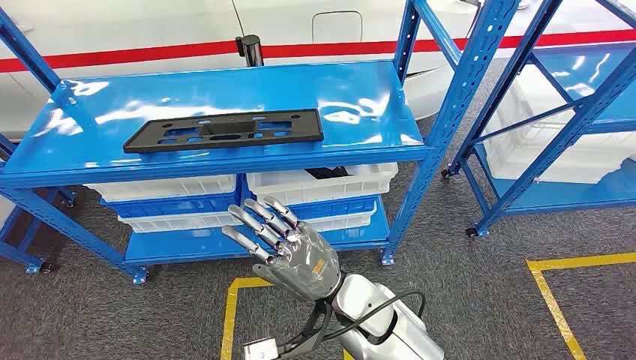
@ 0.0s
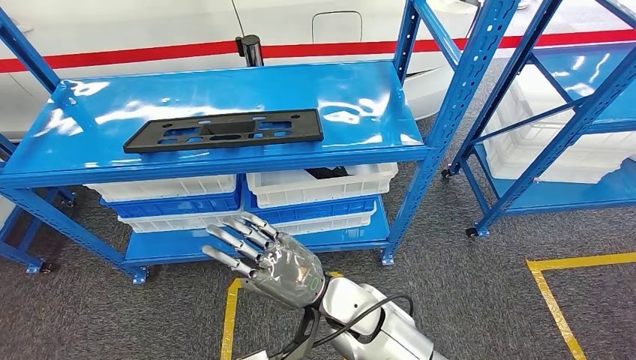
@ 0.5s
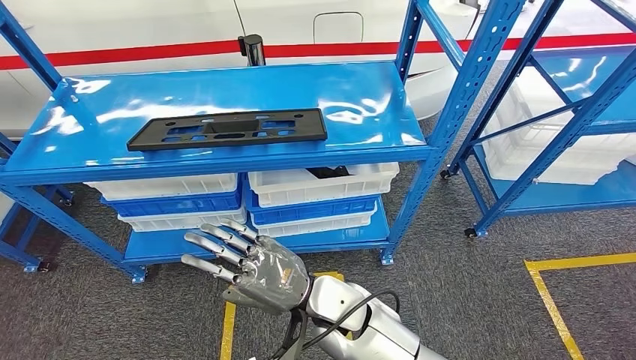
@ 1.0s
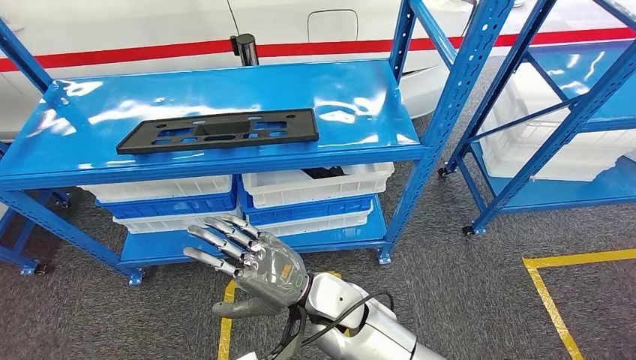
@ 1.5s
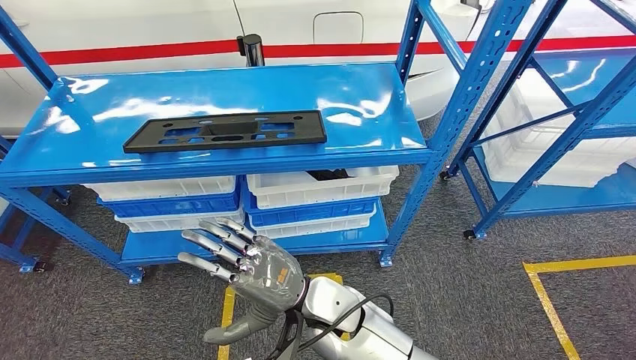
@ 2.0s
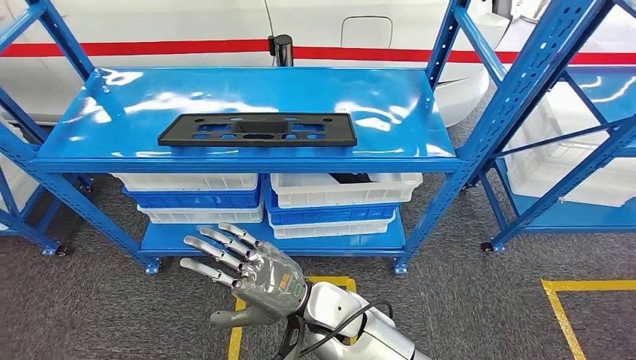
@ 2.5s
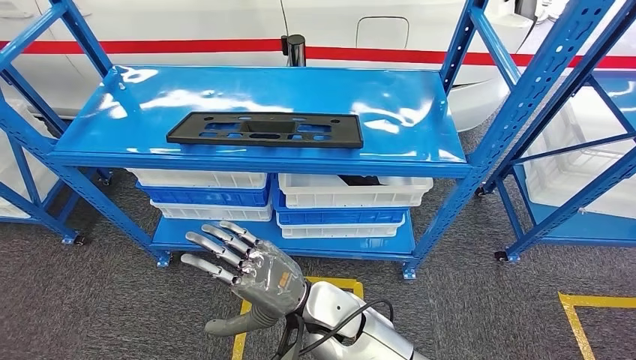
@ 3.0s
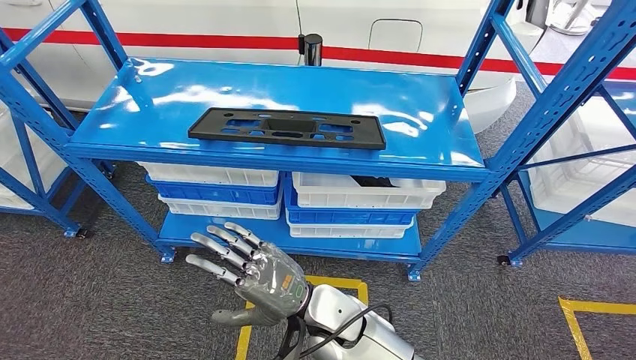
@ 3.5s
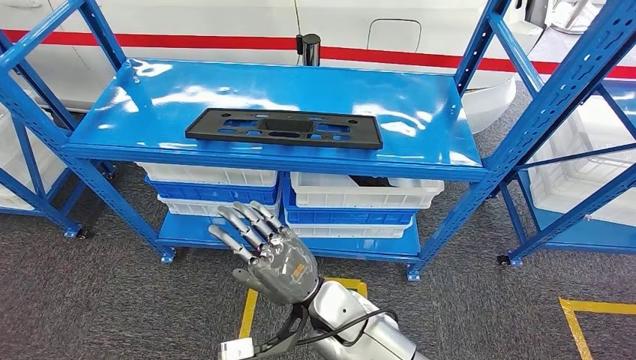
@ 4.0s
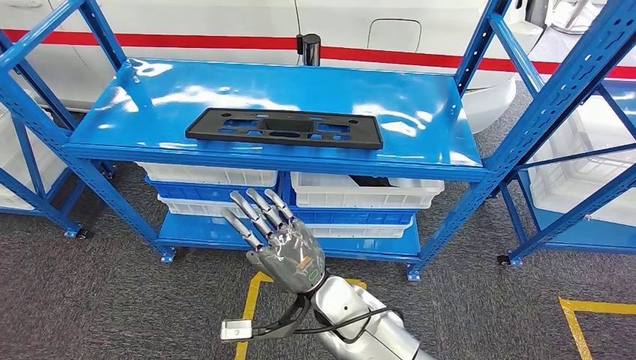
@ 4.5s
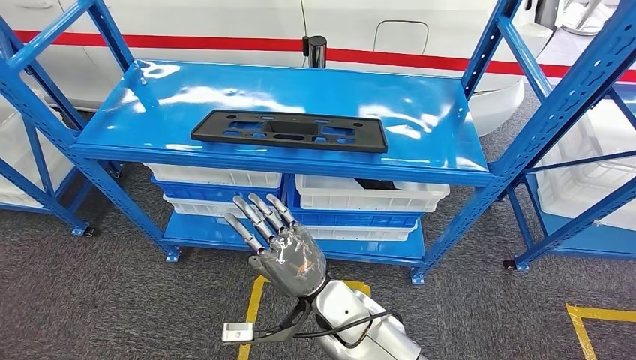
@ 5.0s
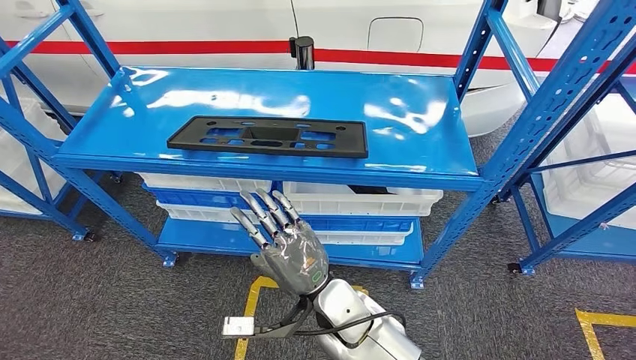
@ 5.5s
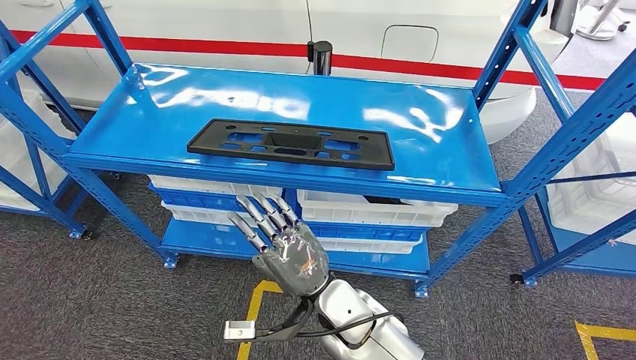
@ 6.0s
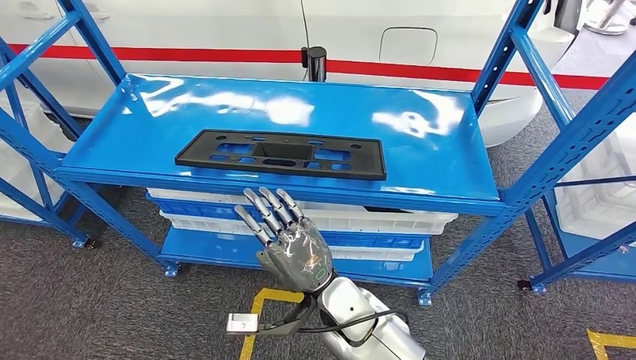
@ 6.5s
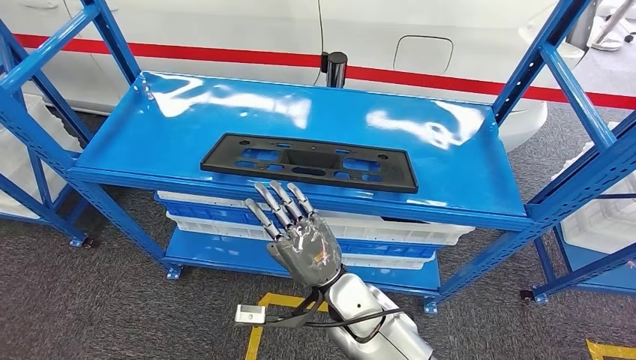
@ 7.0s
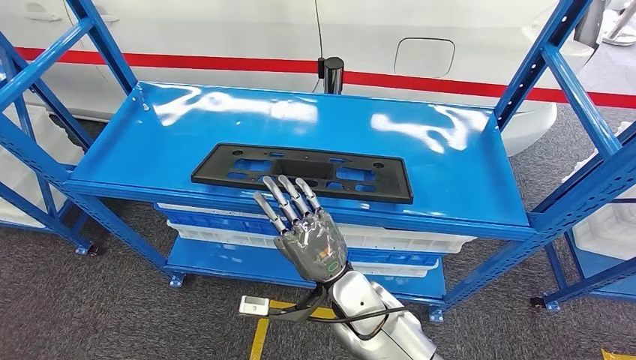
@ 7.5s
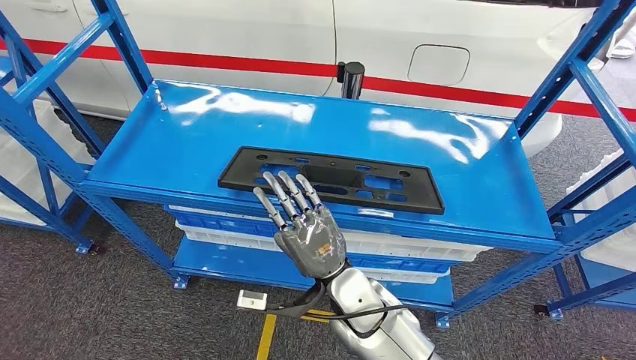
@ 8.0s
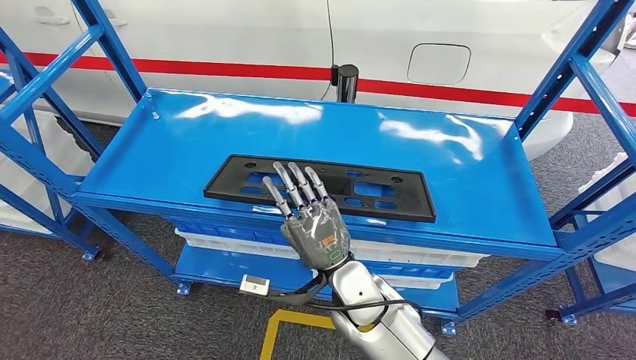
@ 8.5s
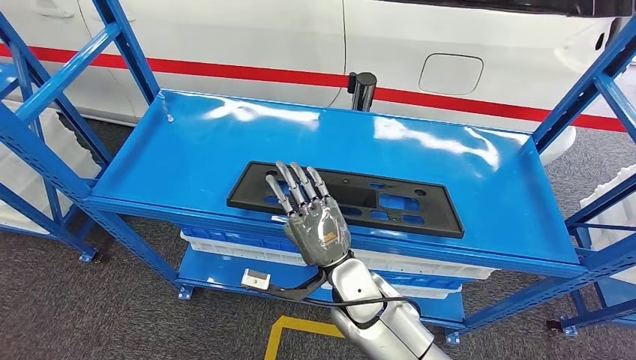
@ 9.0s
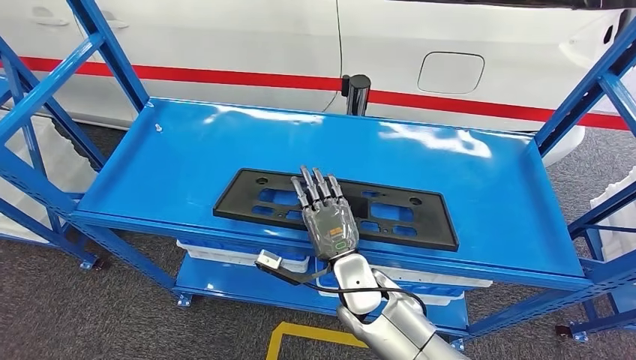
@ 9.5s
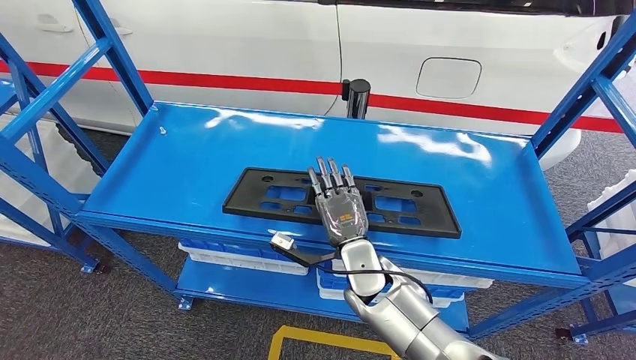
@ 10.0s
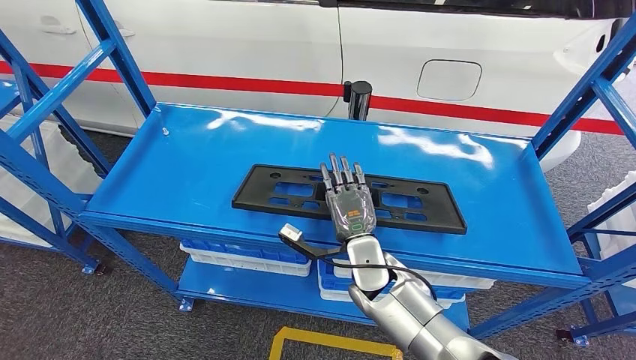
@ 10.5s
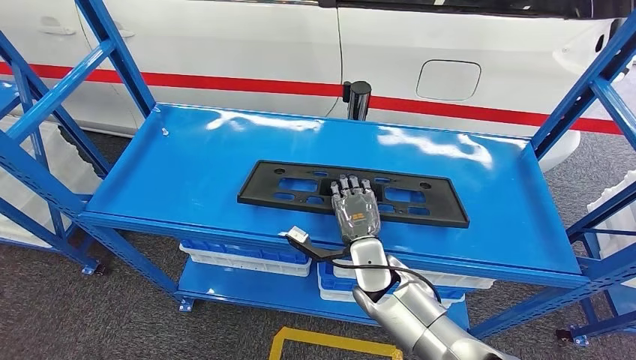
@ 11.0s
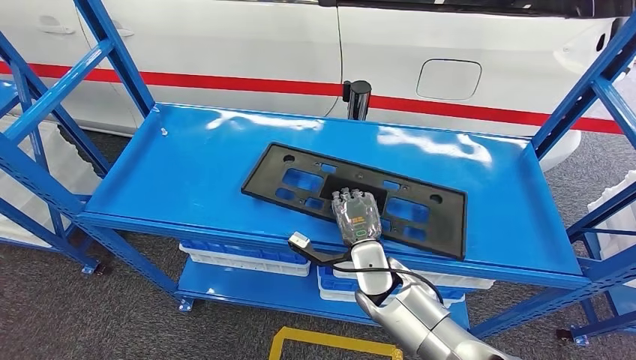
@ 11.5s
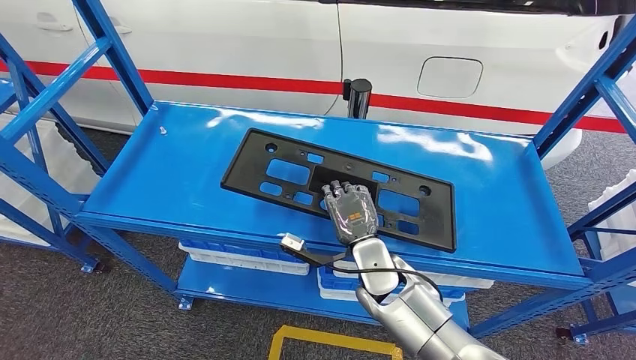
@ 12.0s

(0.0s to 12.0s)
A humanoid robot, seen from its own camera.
10.0s - 12.0s: The hands move only a little.

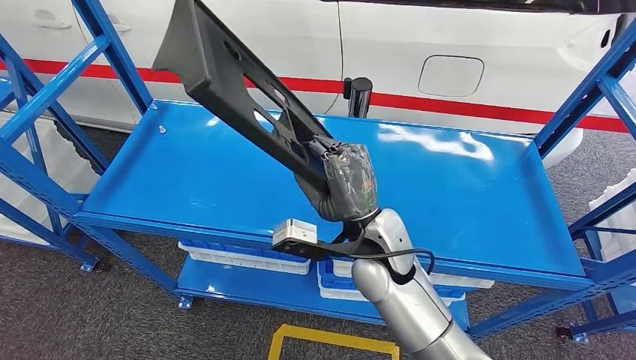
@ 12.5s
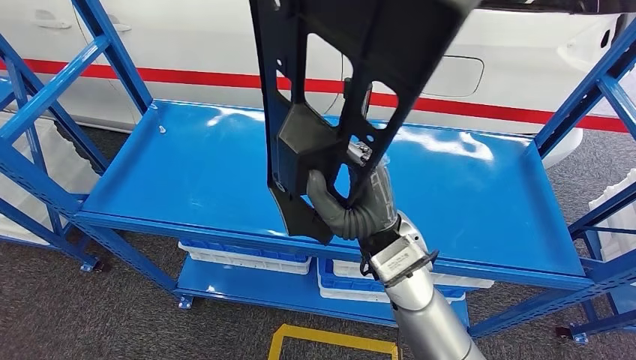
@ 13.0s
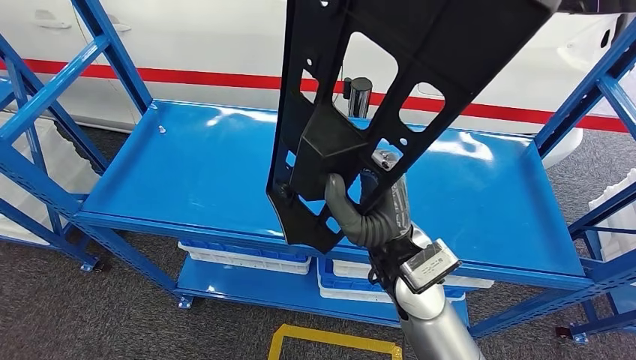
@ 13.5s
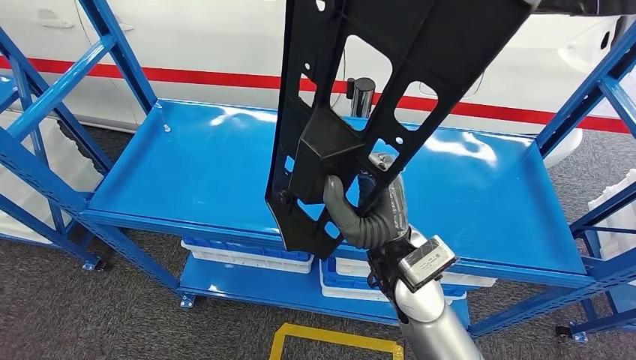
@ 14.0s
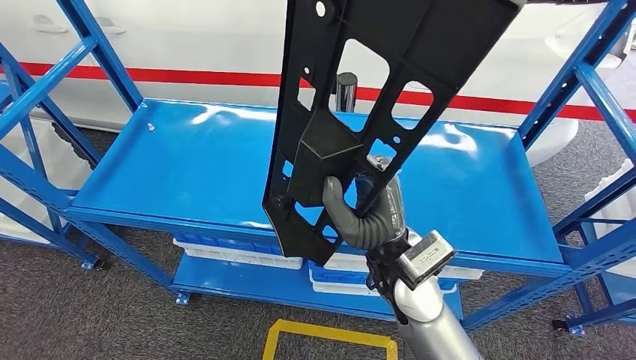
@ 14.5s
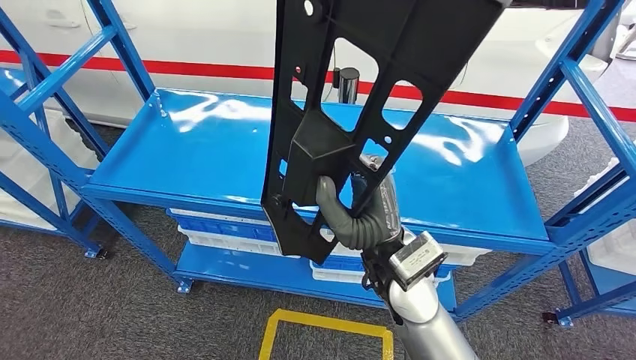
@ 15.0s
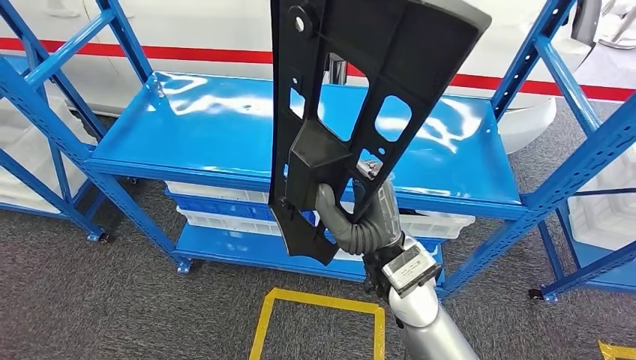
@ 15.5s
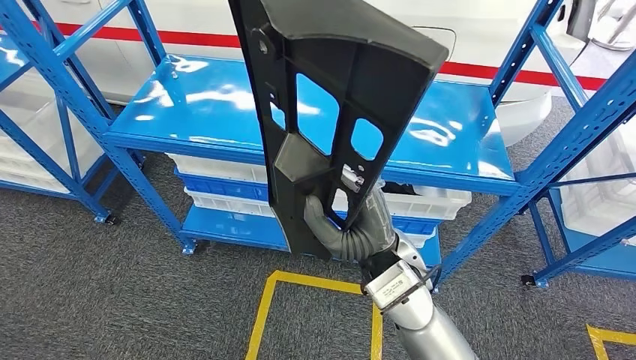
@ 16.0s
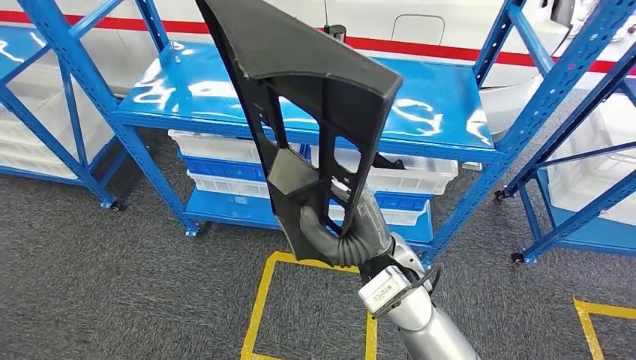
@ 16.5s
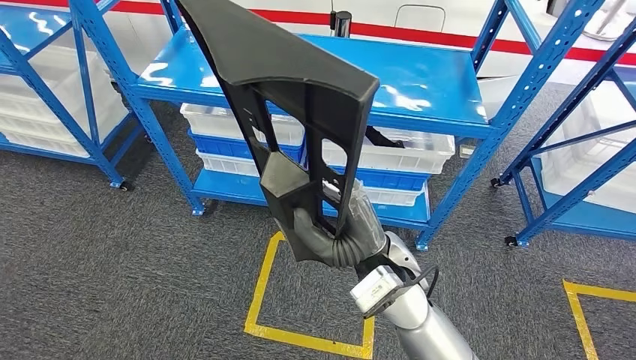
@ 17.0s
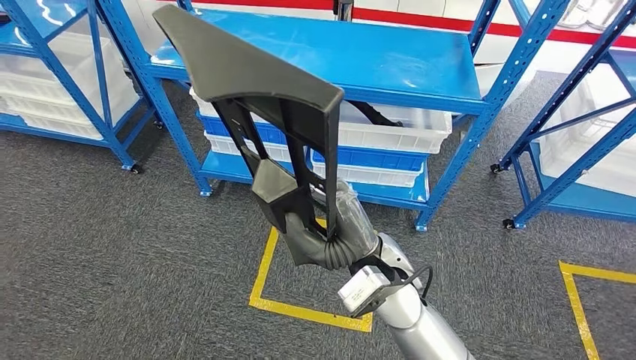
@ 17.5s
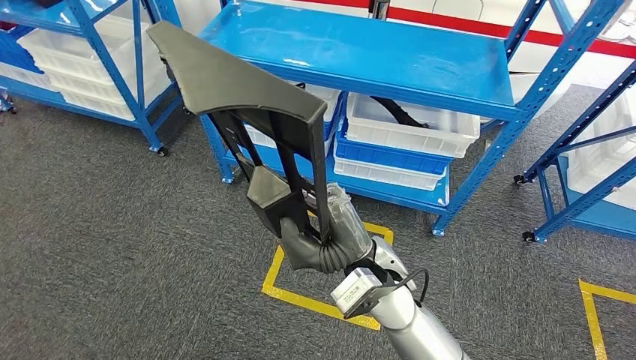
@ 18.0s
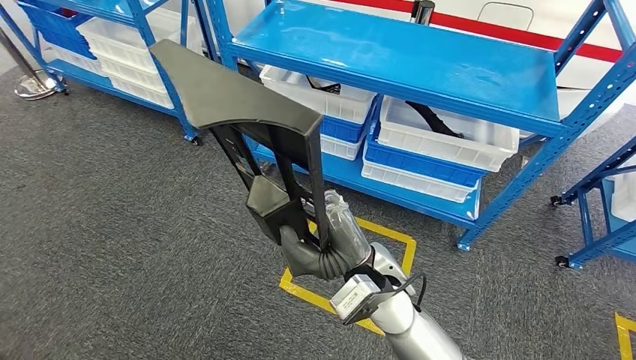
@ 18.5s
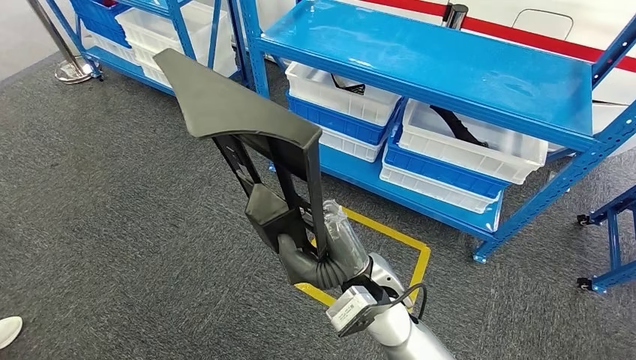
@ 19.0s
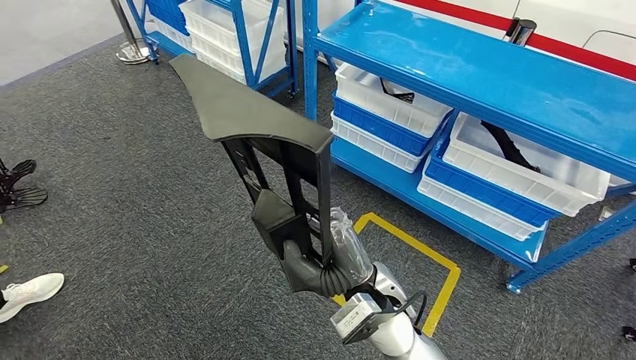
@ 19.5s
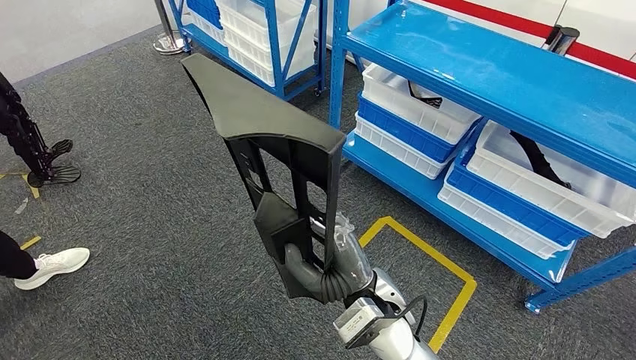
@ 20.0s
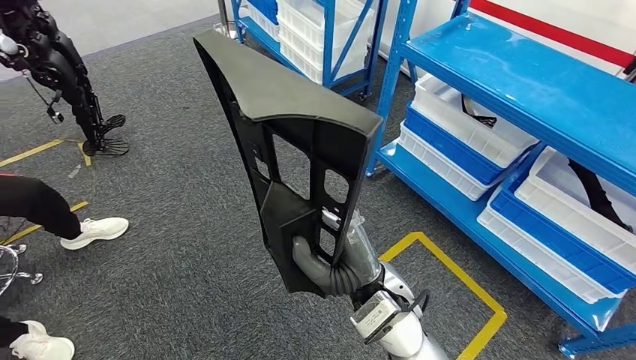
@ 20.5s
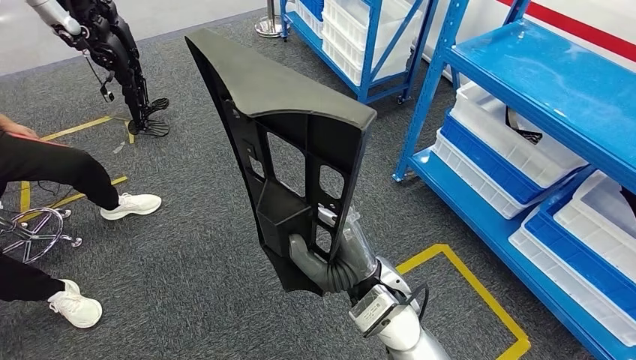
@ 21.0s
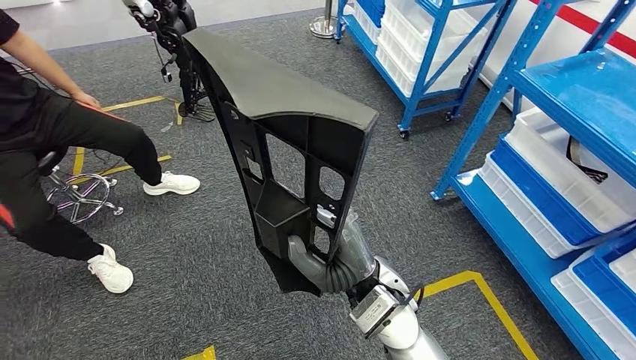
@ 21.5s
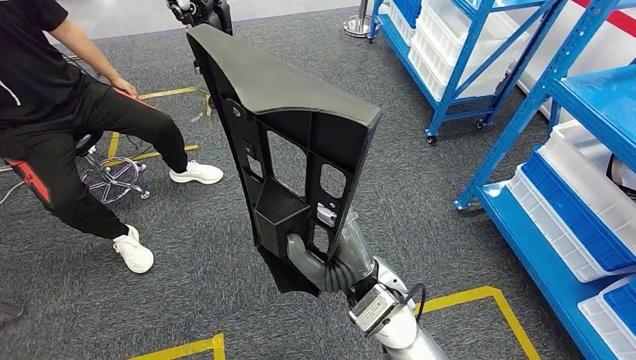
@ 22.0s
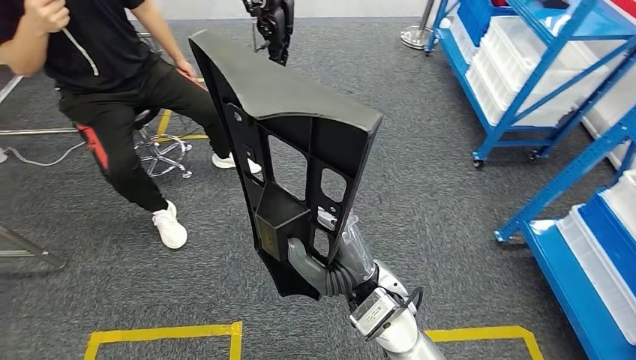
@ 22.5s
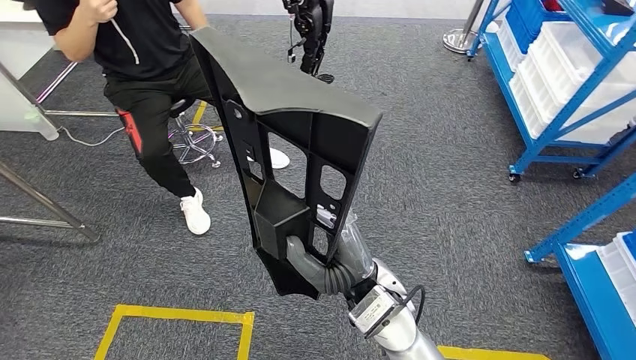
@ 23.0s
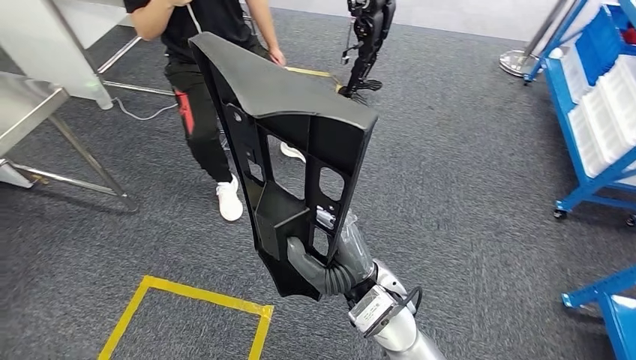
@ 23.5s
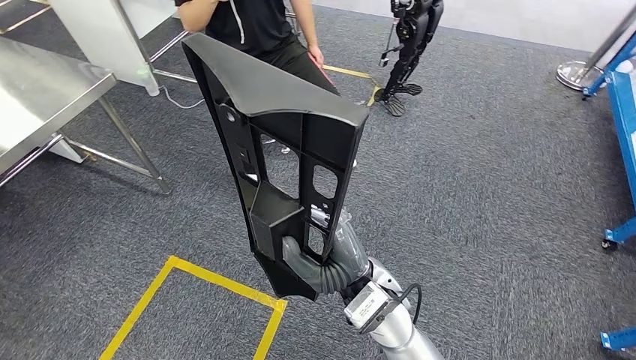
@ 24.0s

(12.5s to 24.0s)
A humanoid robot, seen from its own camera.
Step, 12.5s - 16.5s: Pick up the large material from the shelf.
